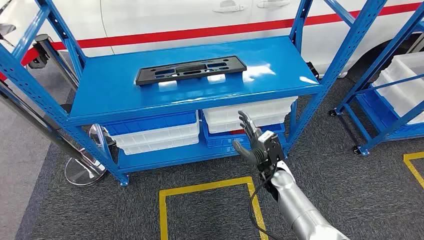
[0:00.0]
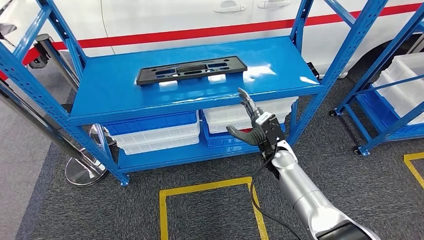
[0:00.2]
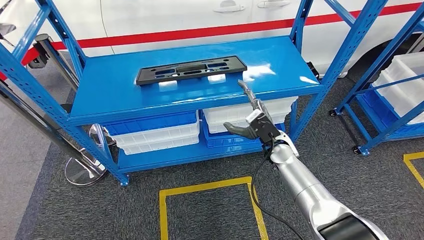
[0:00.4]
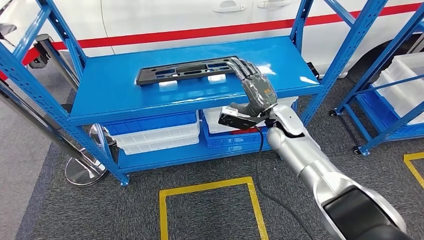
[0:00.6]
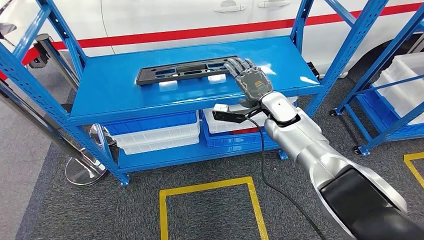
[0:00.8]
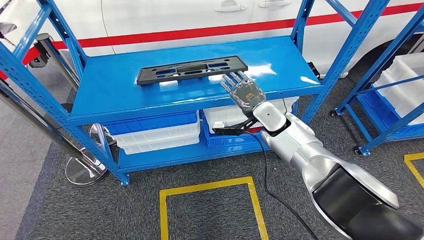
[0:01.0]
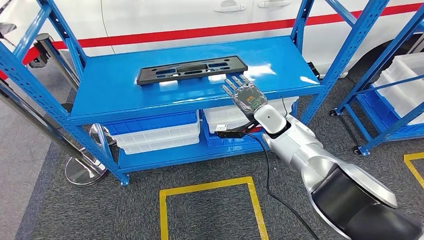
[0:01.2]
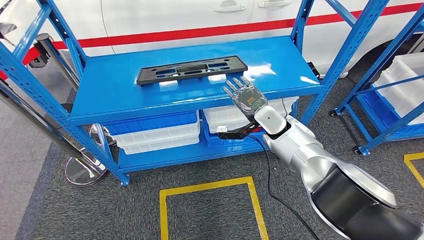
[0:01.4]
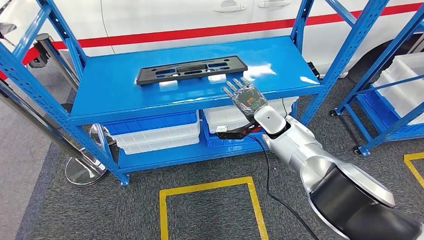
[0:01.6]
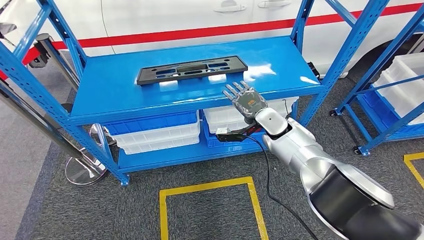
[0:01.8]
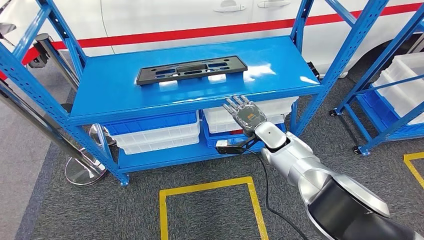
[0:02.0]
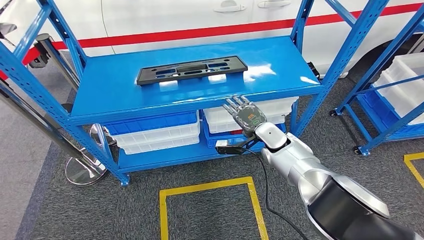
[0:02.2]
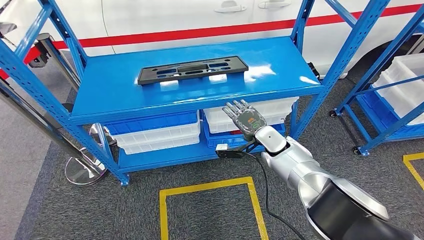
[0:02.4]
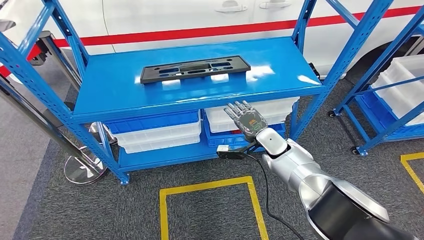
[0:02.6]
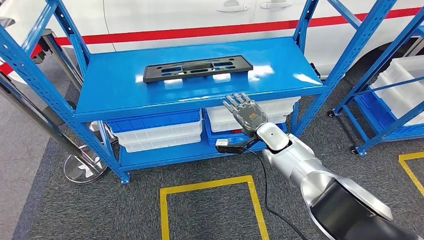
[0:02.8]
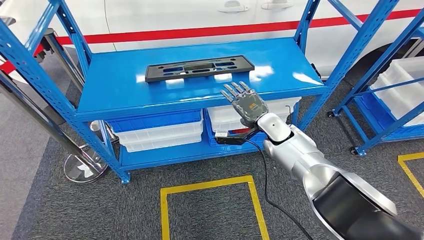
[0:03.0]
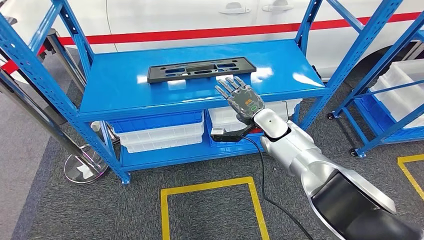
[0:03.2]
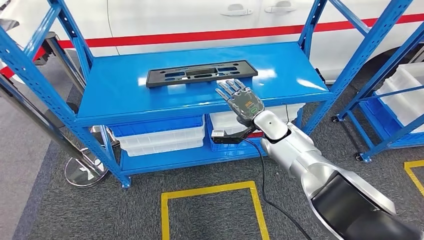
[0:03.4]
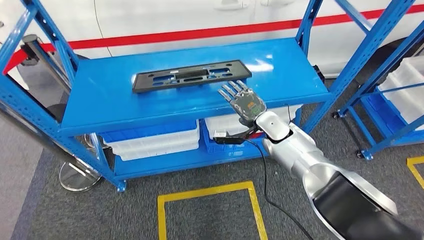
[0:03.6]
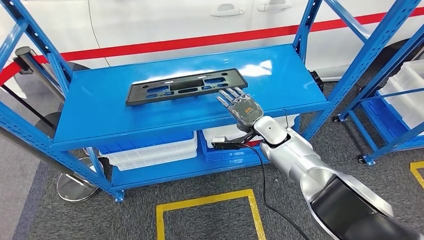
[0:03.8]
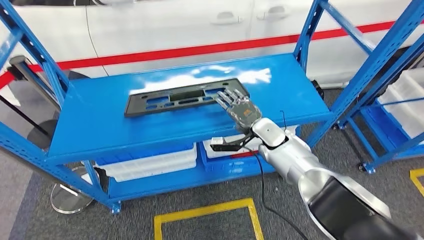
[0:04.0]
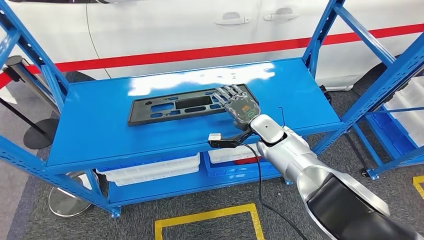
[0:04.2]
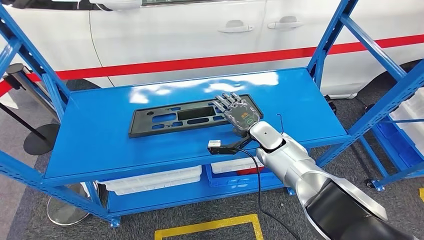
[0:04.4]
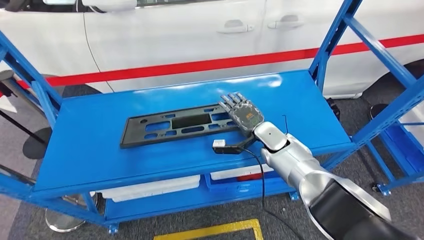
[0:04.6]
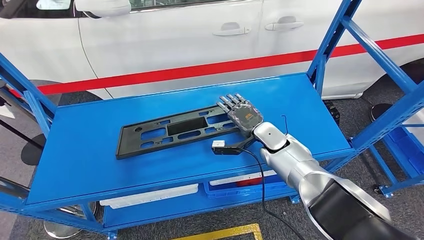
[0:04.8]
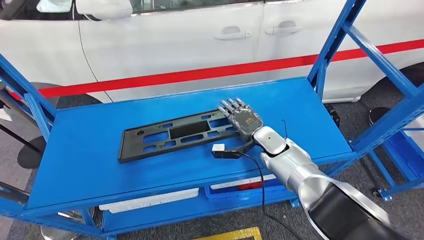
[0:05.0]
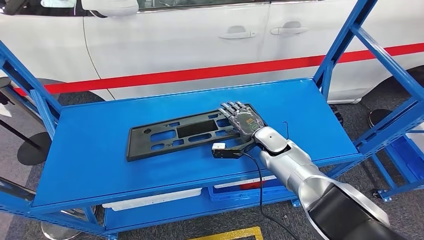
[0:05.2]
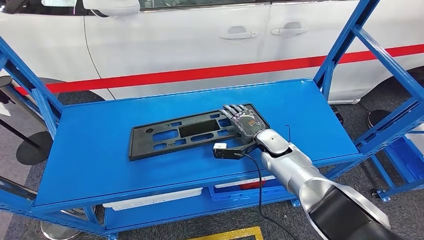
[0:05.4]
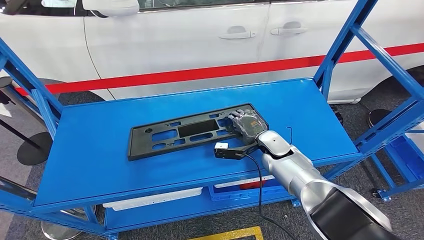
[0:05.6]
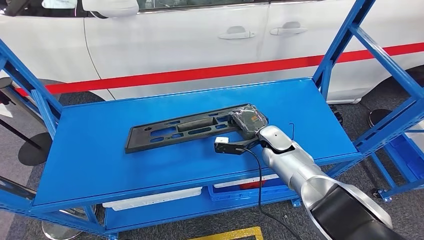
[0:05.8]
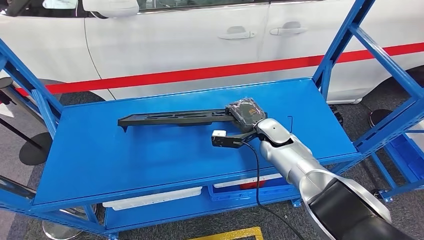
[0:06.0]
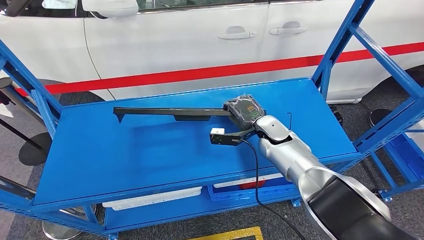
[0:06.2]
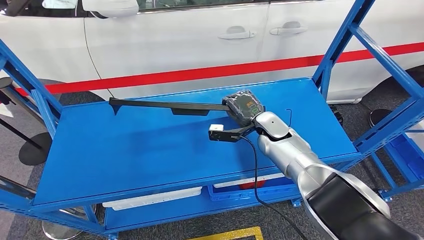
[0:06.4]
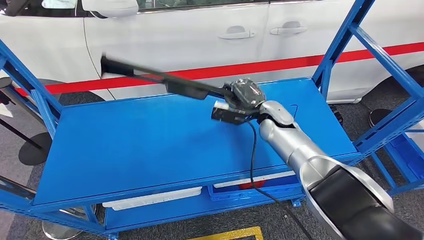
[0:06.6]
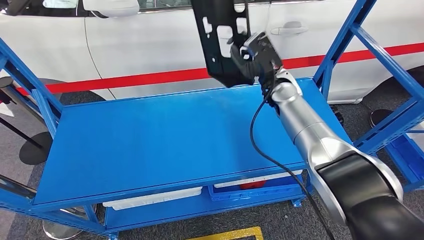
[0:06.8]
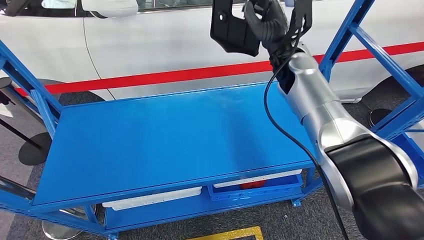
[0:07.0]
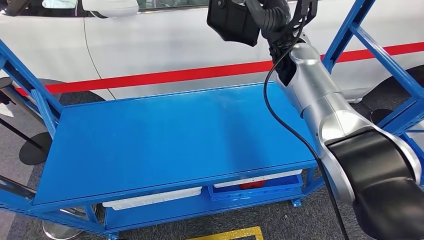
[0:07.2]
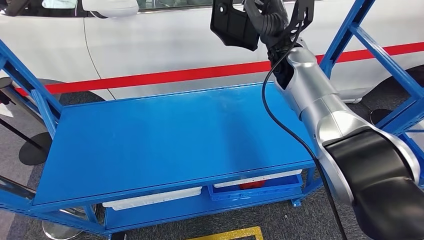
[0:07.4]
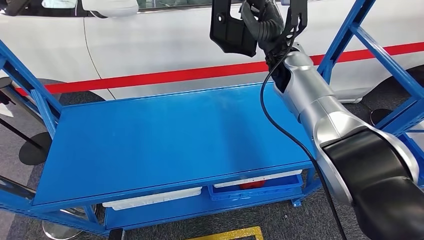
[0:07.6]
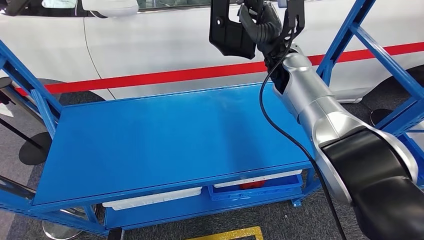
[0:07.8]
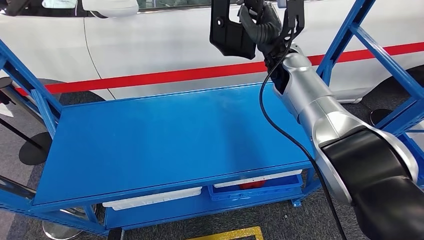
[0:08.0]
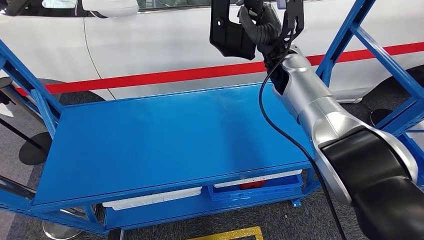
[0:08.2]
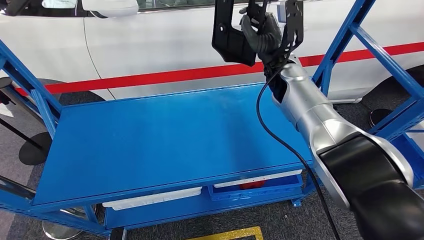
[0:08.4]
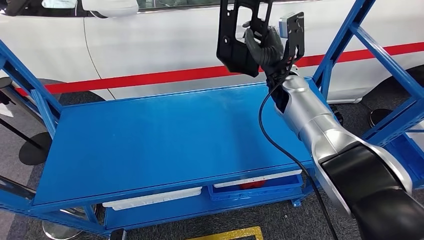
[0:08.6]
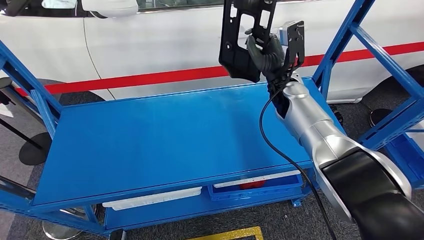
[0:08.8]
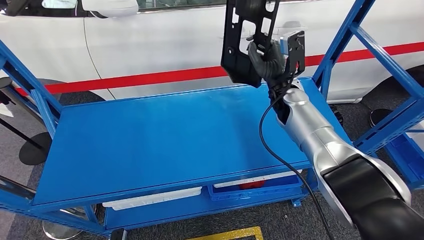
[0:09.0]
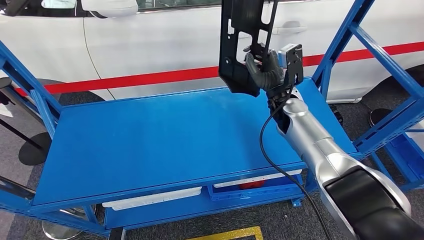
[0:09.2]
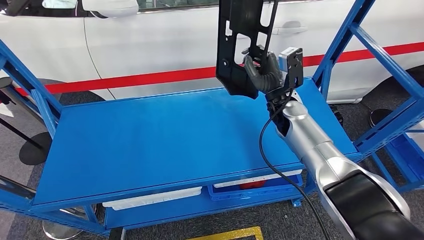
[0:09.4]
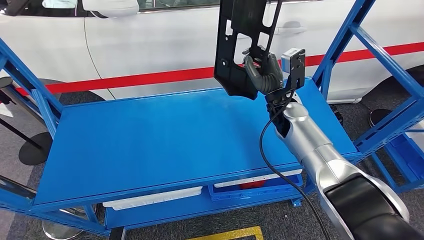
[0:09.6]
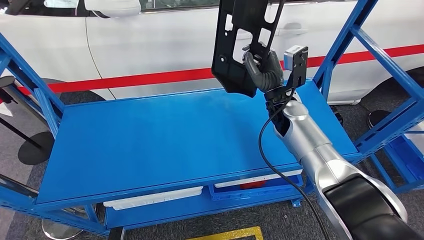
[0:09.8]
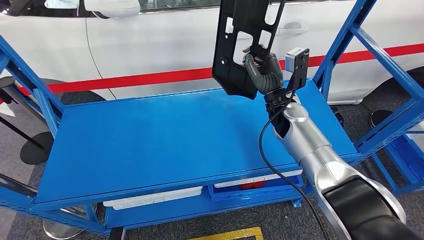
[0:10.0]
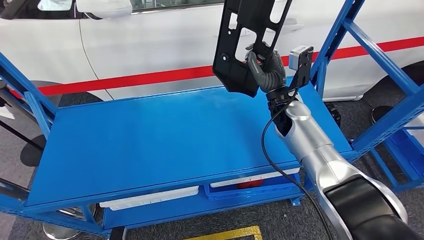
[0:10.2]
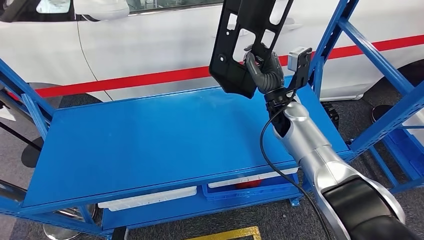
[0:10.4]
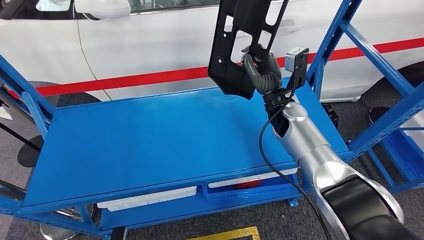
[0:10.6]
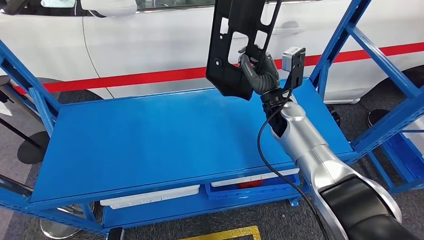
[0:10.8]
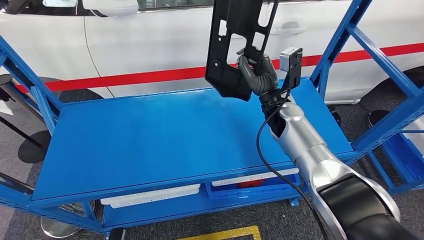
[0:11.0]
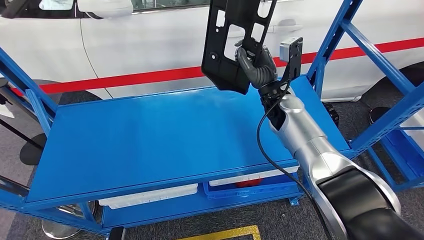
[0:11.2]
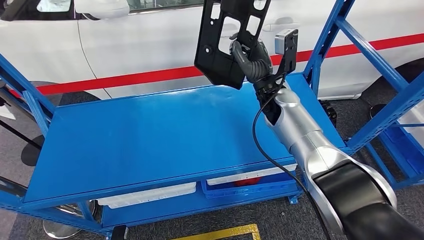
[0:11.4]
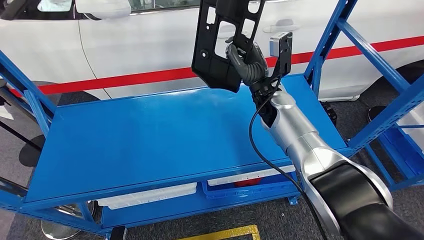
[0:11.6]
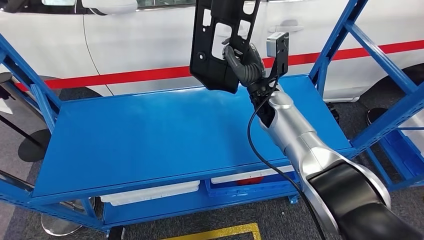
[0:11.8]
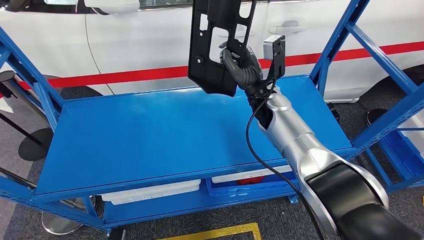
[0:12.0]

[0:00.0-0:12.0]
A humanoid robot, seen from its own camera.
Step, 0:00.0 to 0:07.0: Pick up the large material from the shelf.
0:07.6 to 0:09.0: The right hand heads downward, covering about 10 cm.

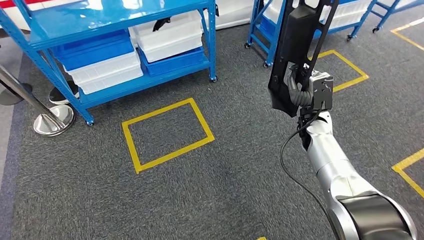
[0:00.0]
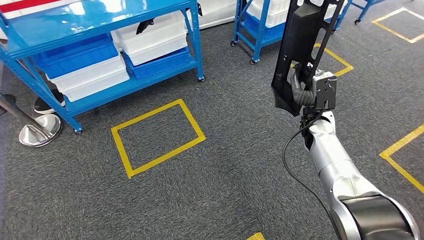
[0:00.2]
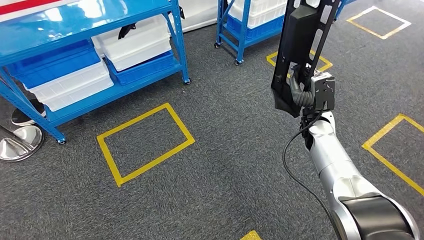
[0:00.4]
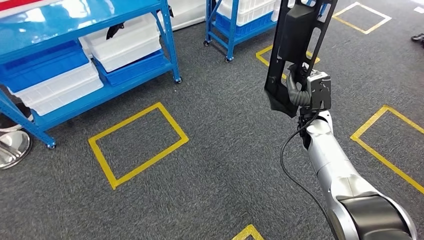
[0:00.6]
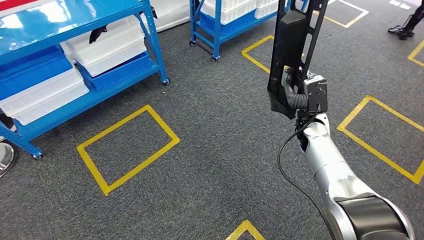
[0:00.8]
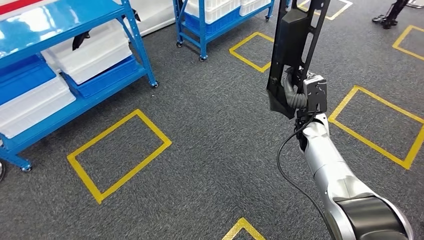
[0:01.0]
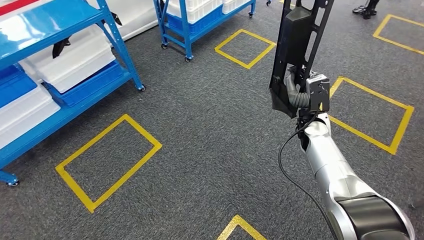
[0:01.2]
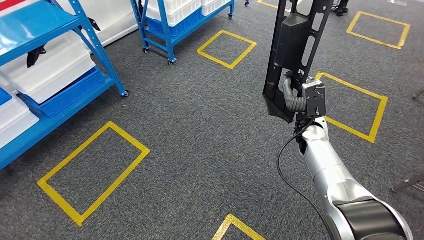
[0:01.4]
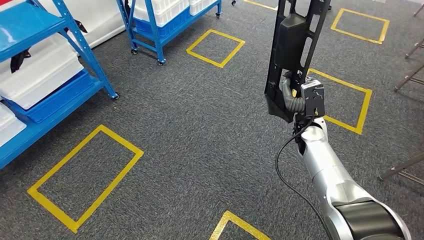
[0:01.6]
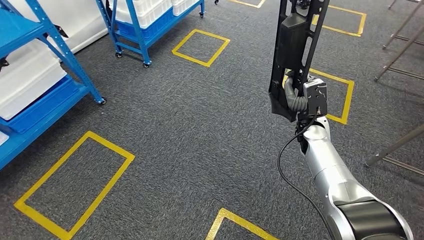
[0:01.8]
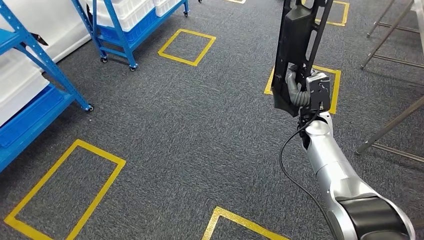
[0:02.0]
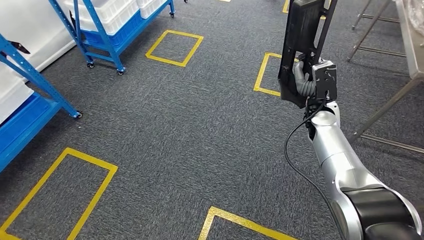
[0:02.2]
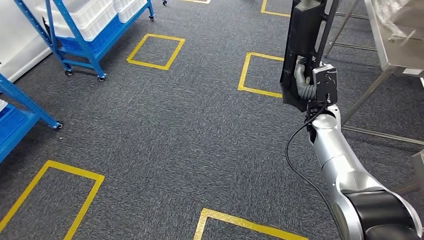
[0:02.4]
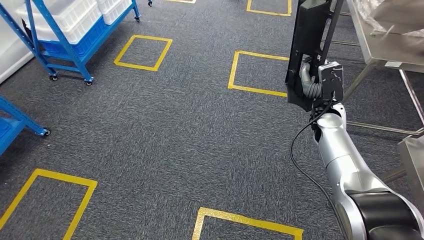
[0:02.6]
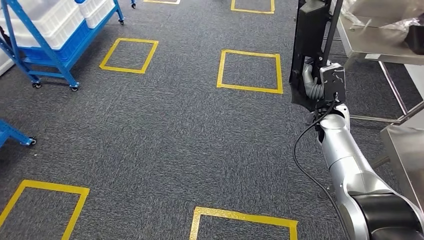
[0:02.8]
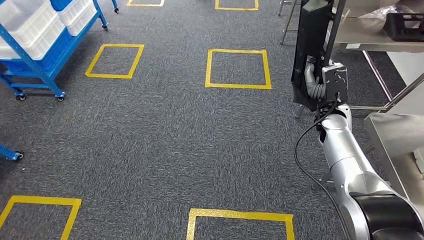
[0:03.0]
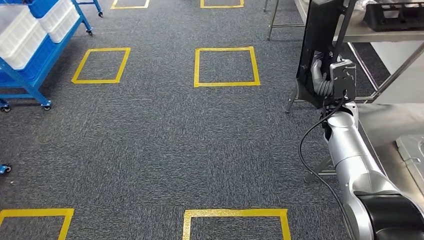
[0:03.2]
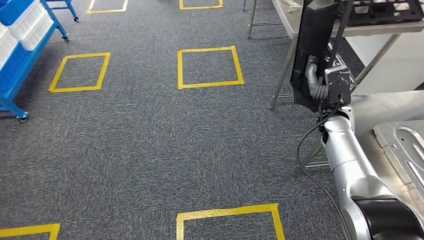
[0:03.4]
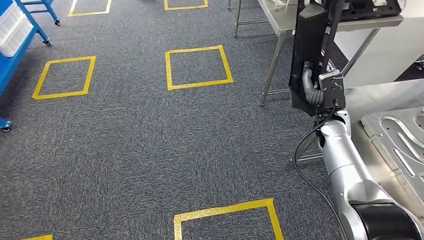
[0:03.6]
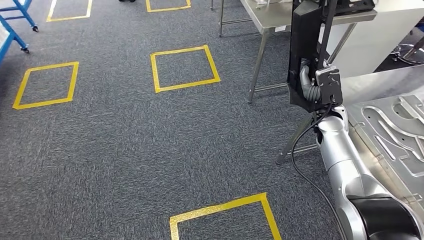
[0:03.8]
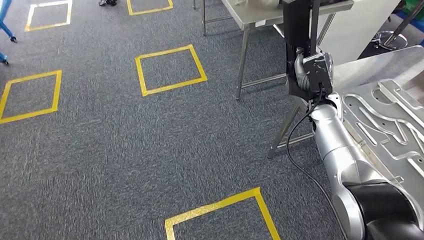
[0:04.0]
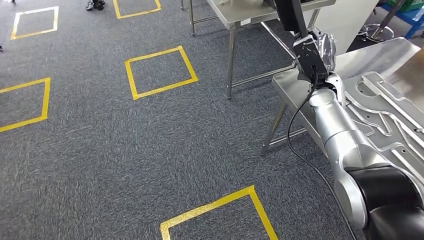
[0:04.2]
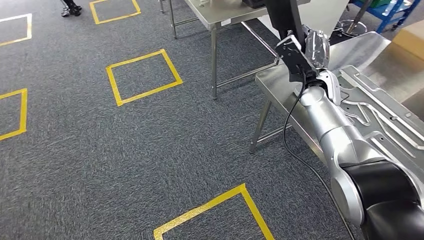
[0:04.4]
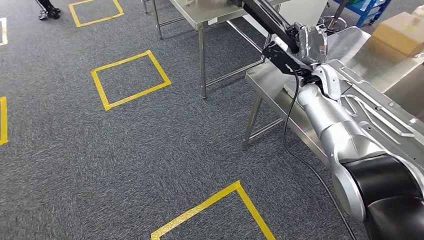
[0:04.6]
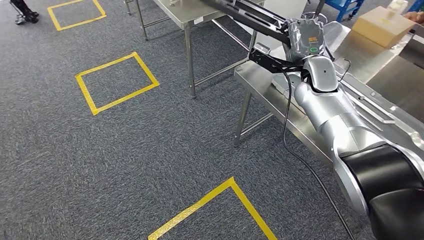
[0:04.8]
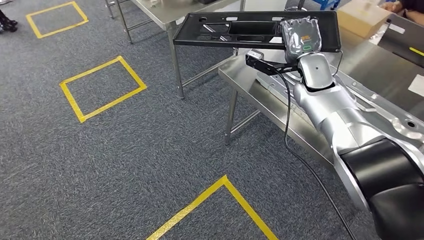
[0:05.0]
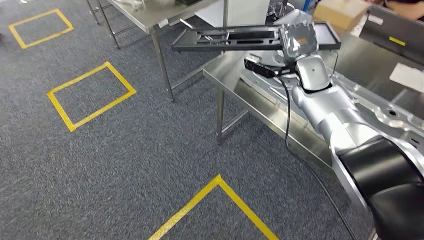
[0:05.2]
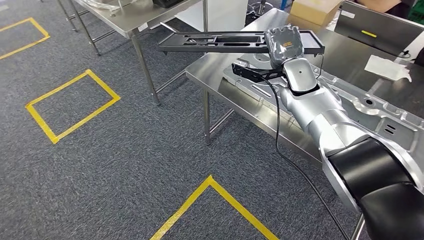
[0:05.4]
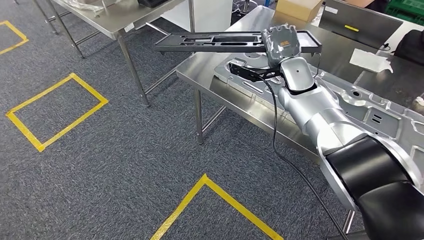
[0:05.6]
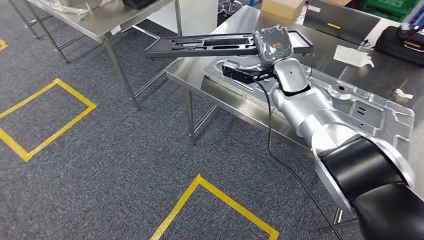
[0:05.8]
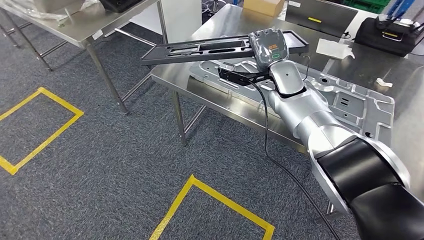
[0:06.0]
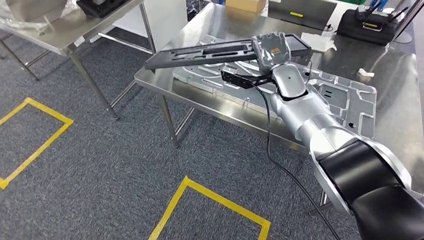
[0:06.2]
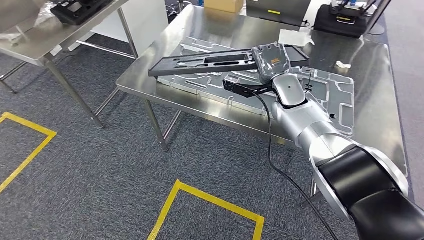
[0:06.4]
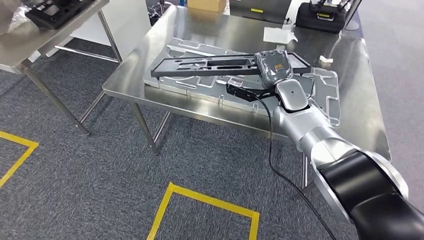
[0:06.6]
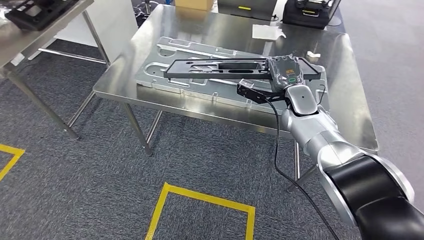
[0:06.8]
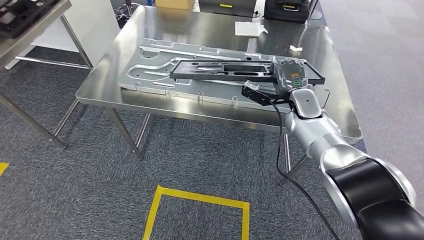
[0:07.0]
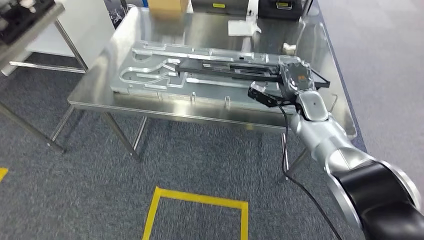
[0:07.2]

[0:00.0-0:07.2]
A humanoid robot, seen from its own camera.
Step, 0:00.0 to 0:06.6: Move the large material to the workbench.
